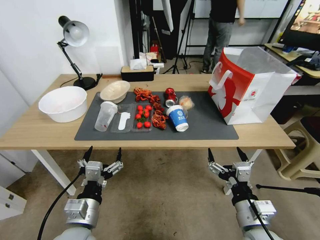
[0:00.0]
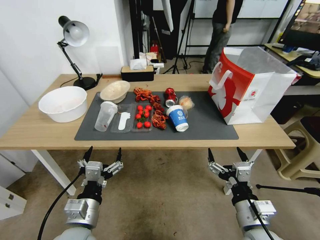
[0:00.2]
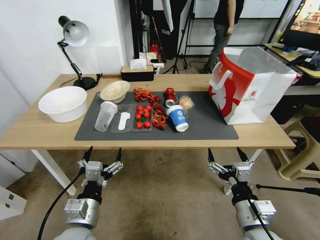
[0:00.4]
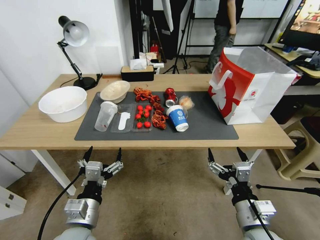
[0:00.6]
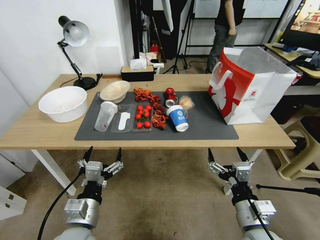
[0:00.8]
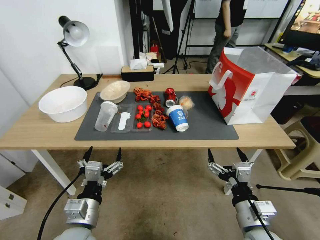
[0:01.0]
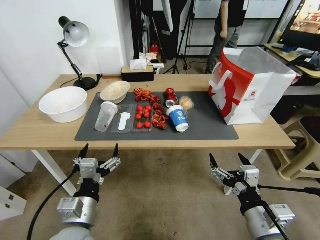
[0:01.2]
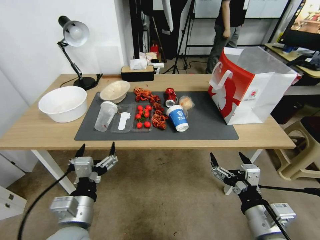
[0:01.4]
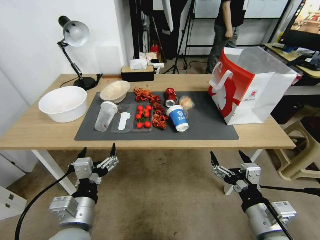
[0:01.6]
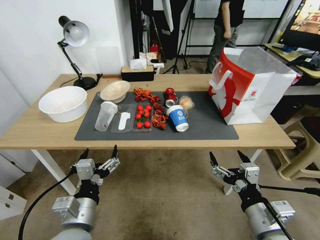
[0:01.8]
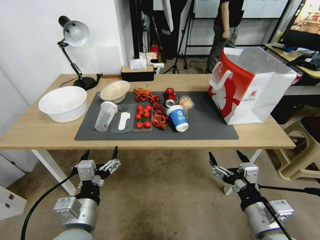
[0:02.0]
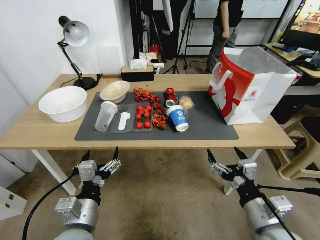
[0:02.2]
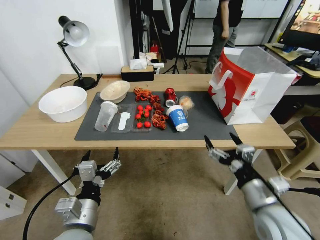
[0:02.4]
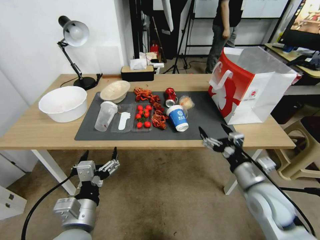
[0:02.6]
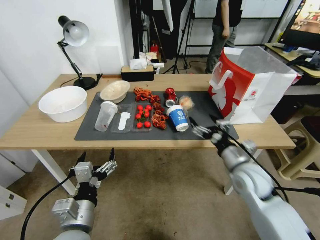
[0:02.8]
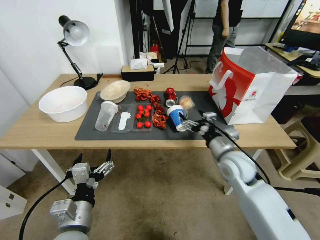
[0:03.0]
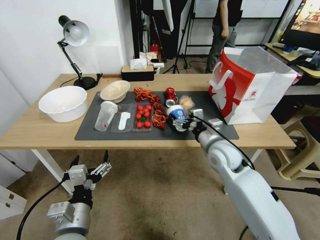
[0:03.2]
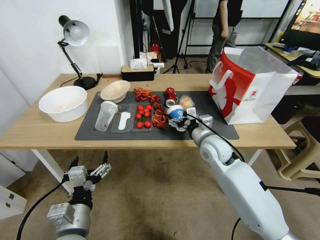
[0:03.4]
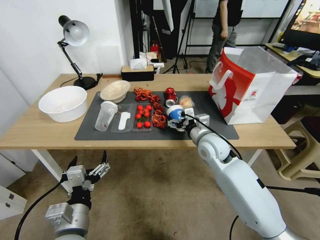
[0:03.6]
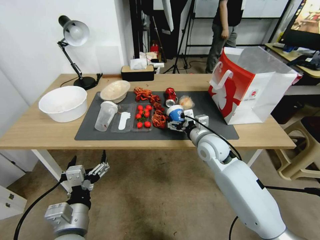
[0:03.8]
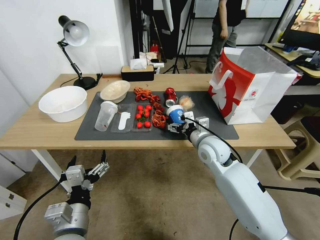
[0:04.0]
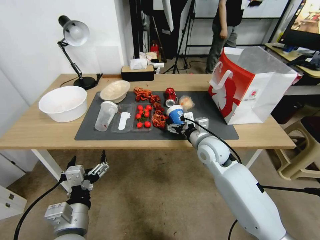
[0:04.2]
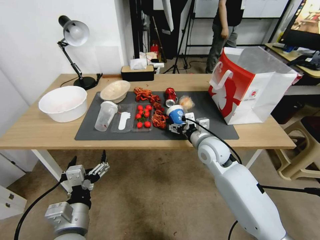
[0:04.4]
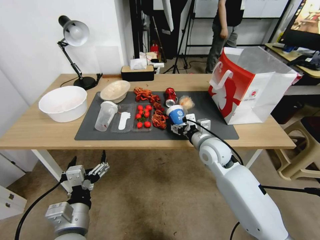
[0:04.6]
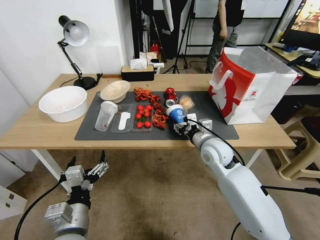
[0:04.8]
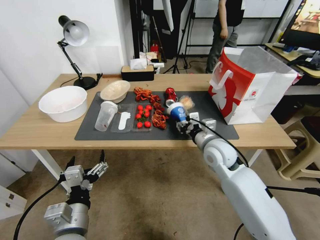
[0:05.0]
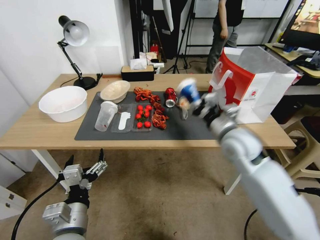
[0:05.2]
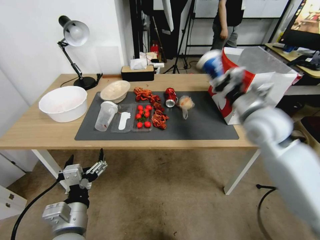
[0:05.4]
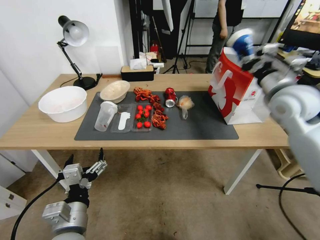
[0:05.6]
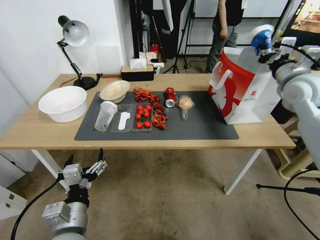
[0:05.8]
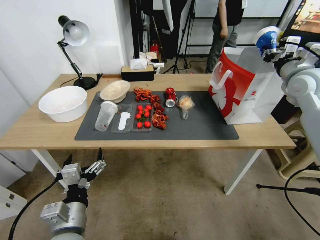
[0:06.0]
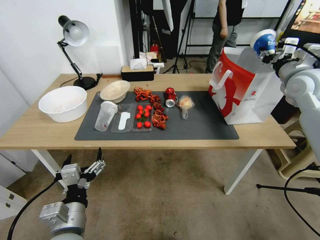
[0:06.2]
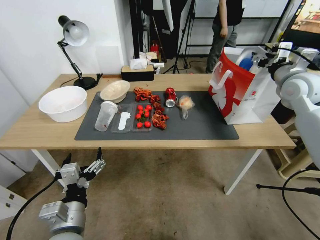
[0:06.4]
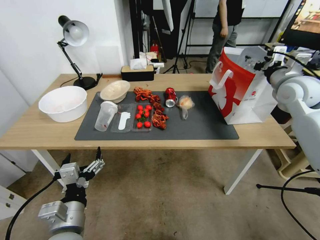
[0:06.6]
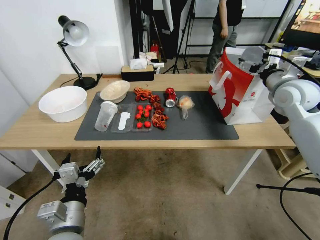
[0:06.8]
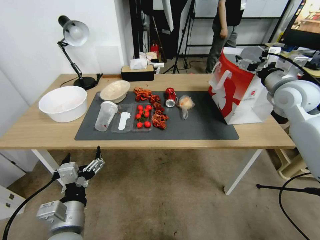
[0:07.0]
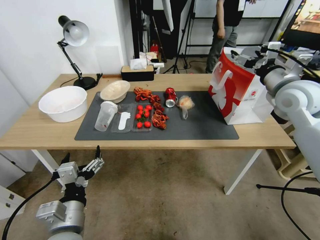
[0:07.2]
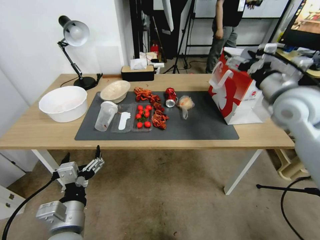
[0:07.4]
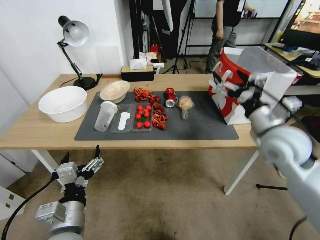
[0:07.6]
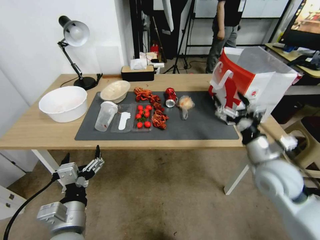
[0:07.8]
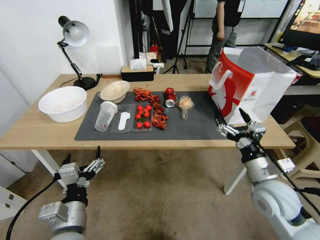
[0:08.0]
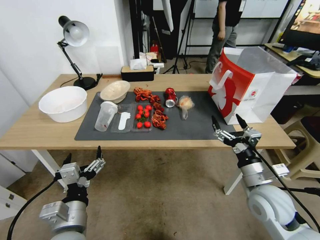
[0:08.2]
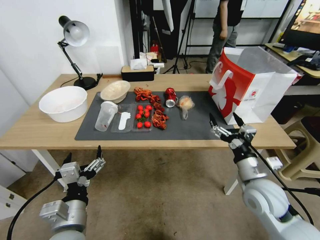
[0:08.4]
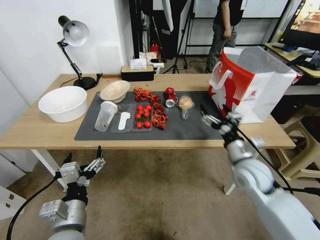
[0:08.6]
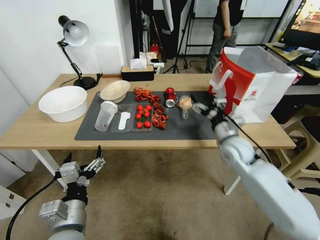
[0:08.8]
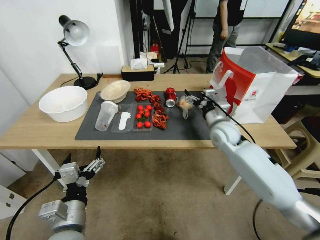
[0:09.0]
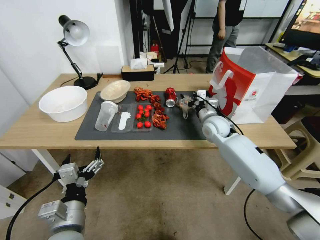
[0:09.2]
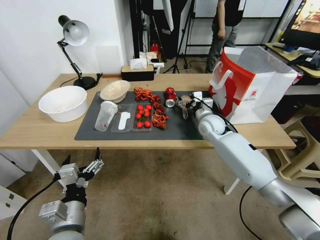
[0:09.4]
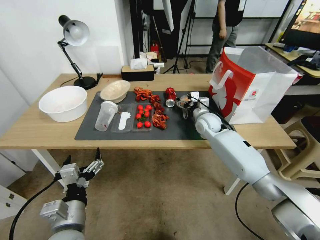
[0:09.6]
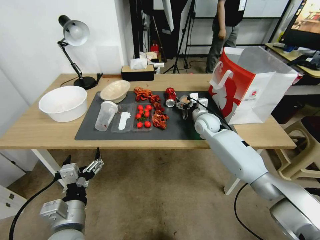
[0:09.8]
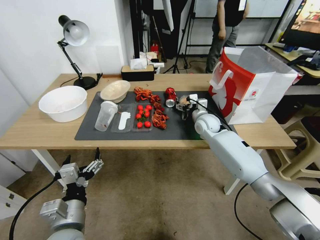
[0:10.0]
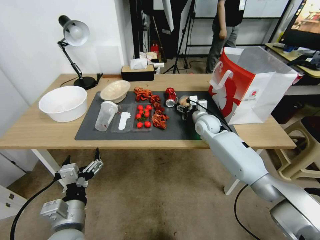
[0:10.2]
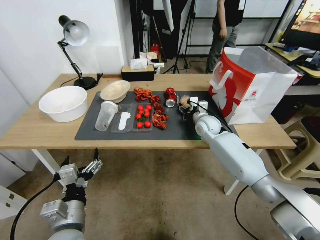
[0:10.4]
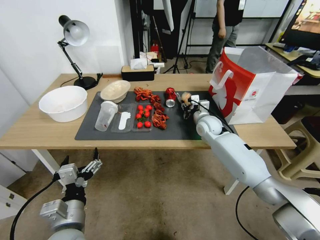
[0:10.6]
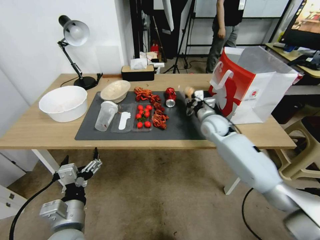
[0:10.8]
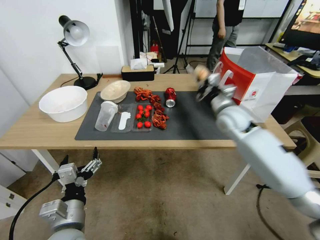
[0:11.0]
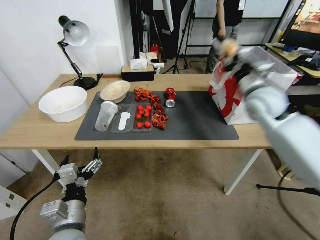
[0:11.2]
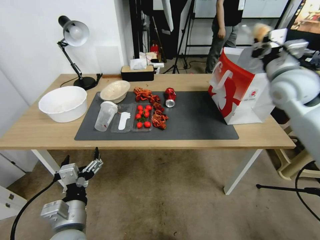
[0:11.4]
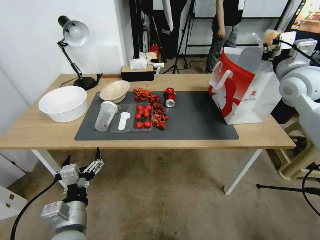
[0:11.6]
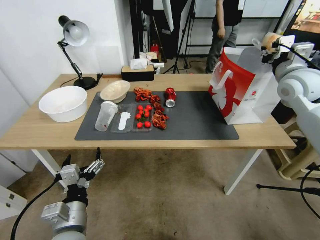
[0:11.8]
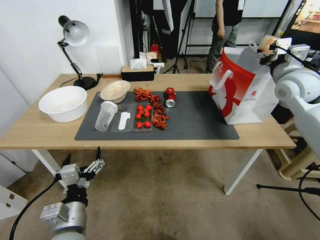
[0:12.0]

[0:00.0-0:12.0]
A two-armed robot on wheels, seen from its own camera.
0:01.6 to 0:03.0: The right gripper heads forward, covering roughly 20 cm.
0:03.0 to 0:04.4: The right gripper shifts about 5 cm to the left.
0:04.4 to 0:06.0: The right gripper moves to the right and upward, approximately 30 cm, and closes.
0:06.0 to 0:07.6: The right gripper is displaced backward, to the left and downward by approximately 20 cm, and opens.
0:07.6 to 0:09.0: The right gripper travels forward, downward and to the left by about 20 cm.
0:09.0 to 0:10.4: The right gripper moves forward, about 5 cm, and closes.
0:10.4 to 0:12.0: The right gripper heads upward and to the right, covering approximately 30 cm, and closes, then reopens.

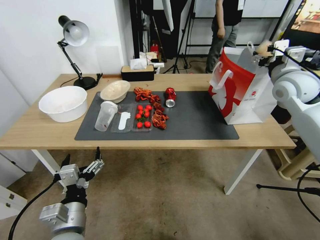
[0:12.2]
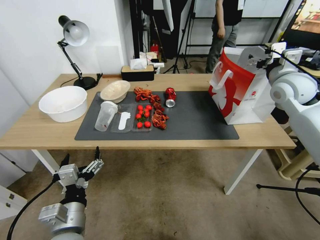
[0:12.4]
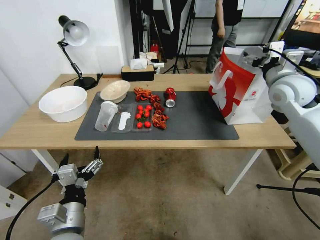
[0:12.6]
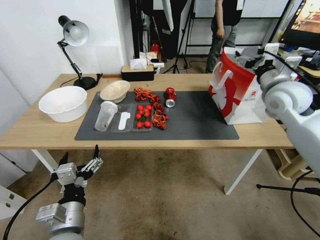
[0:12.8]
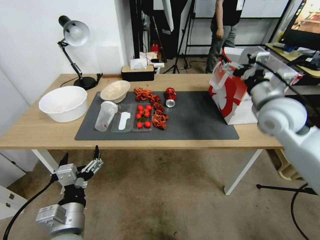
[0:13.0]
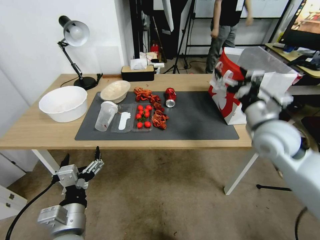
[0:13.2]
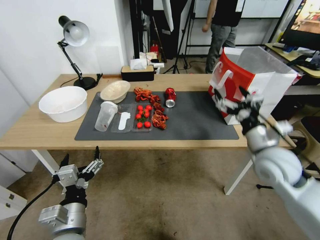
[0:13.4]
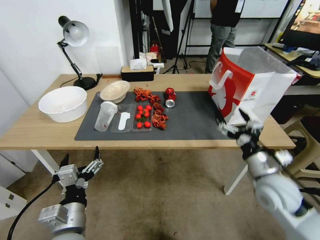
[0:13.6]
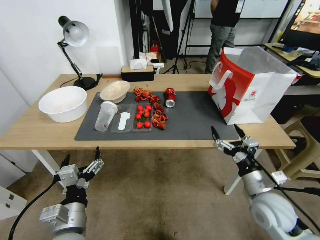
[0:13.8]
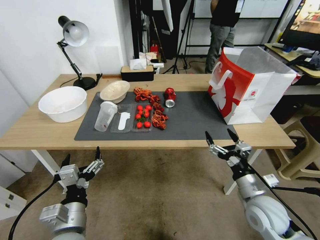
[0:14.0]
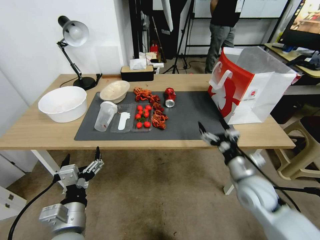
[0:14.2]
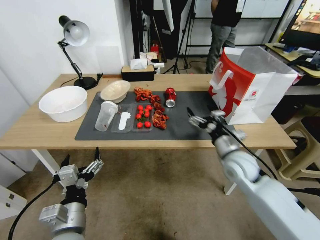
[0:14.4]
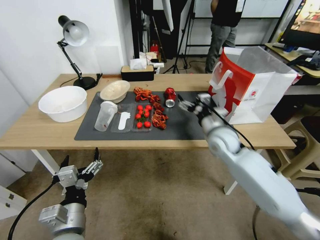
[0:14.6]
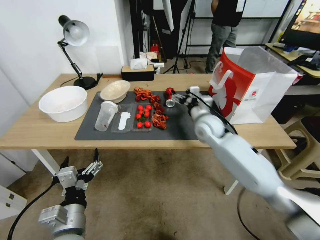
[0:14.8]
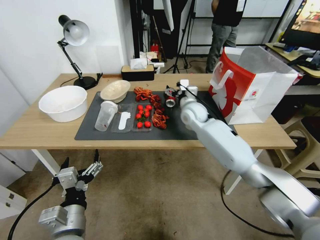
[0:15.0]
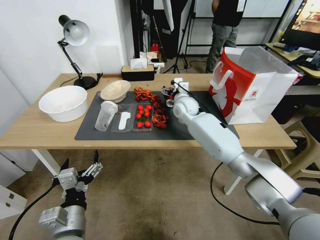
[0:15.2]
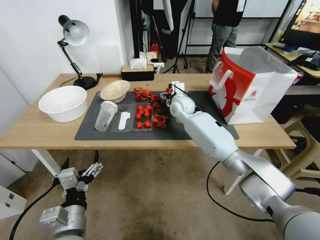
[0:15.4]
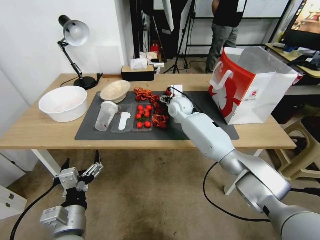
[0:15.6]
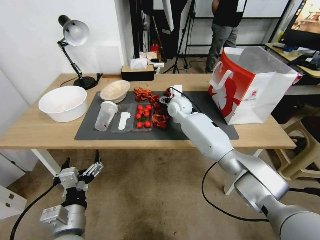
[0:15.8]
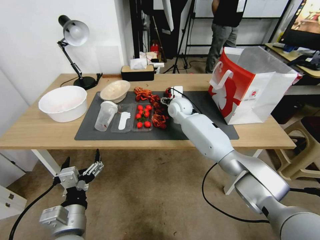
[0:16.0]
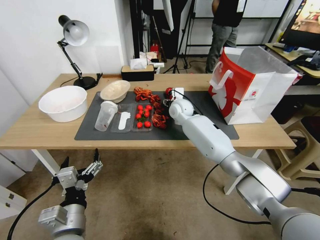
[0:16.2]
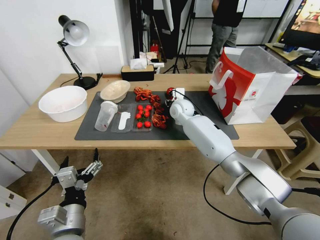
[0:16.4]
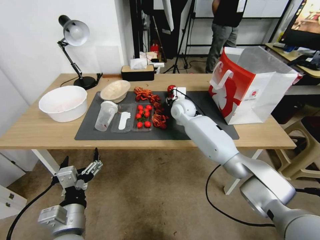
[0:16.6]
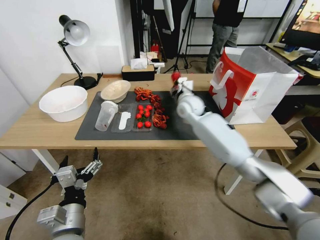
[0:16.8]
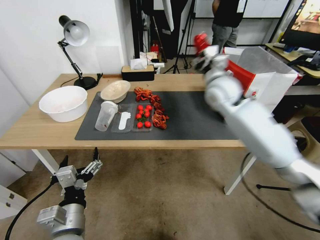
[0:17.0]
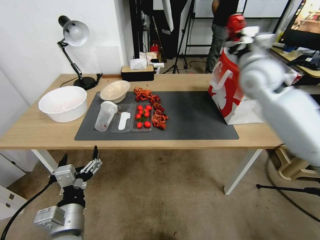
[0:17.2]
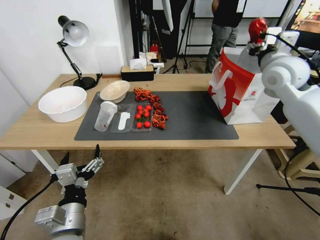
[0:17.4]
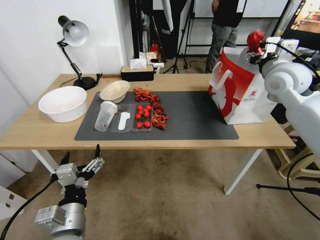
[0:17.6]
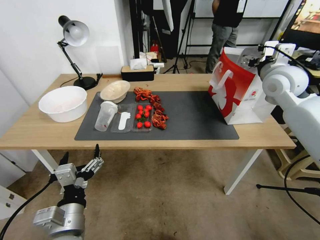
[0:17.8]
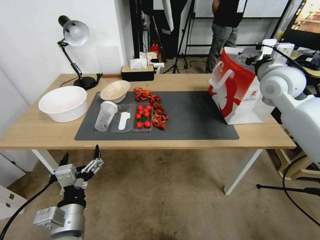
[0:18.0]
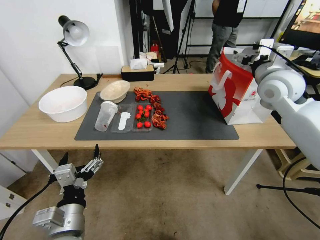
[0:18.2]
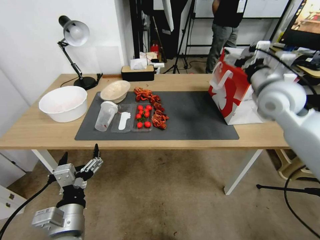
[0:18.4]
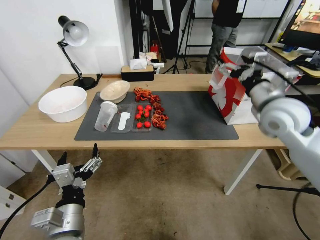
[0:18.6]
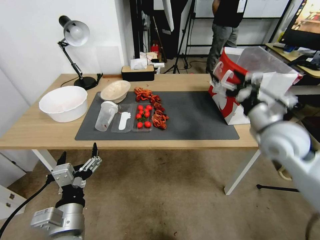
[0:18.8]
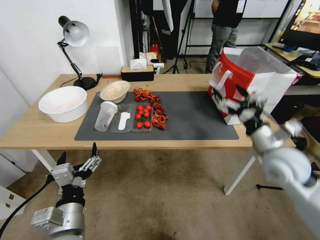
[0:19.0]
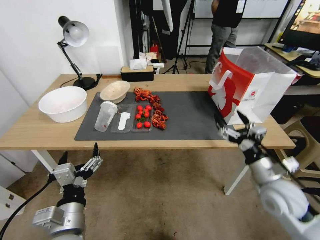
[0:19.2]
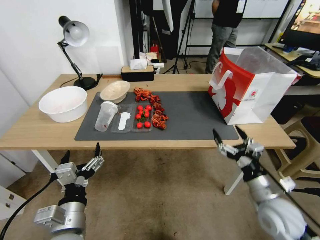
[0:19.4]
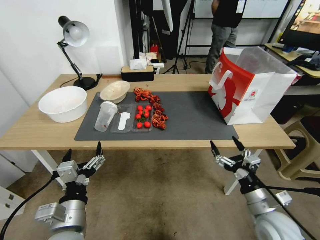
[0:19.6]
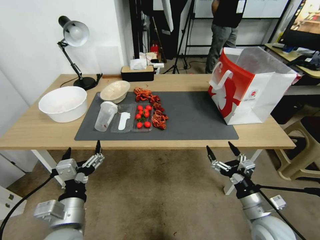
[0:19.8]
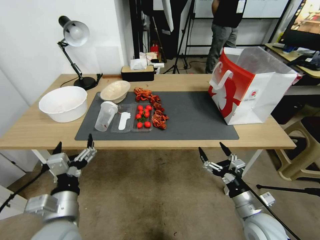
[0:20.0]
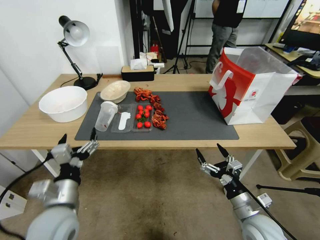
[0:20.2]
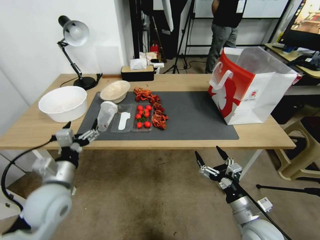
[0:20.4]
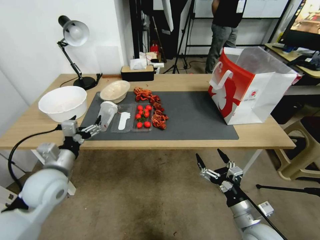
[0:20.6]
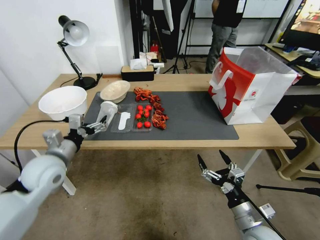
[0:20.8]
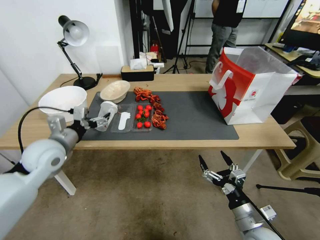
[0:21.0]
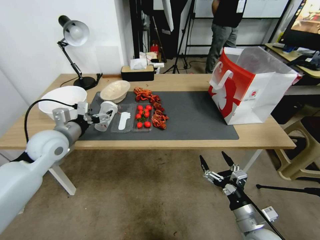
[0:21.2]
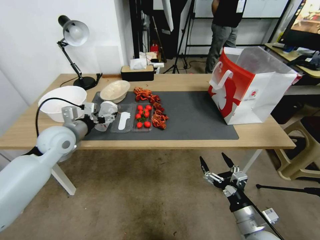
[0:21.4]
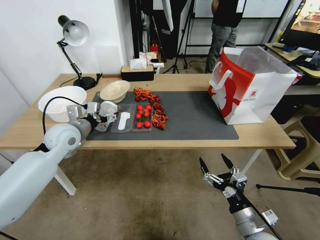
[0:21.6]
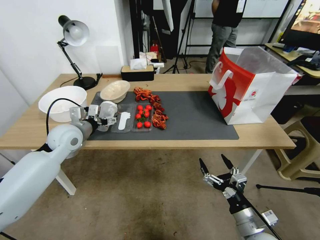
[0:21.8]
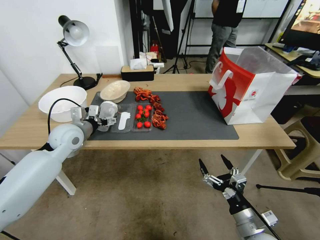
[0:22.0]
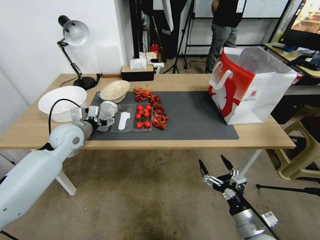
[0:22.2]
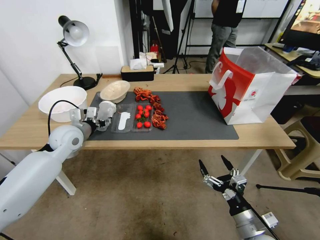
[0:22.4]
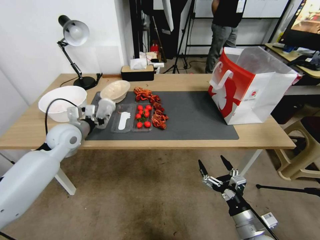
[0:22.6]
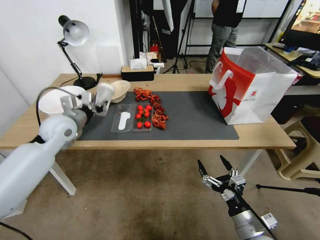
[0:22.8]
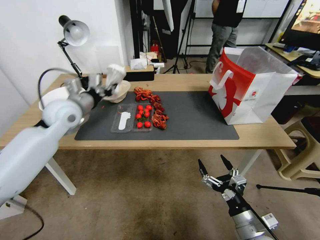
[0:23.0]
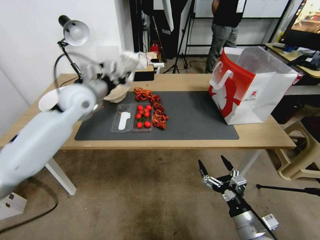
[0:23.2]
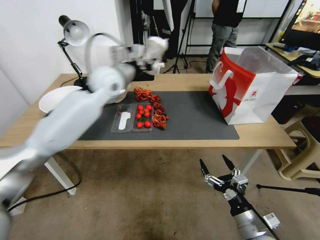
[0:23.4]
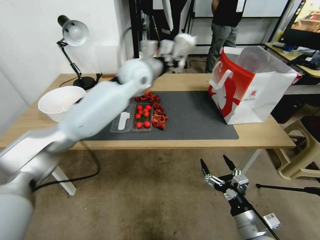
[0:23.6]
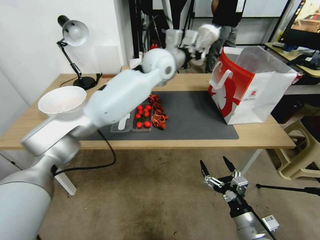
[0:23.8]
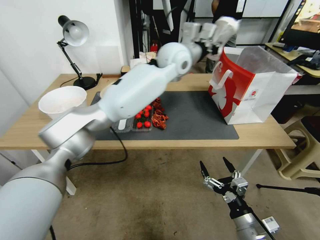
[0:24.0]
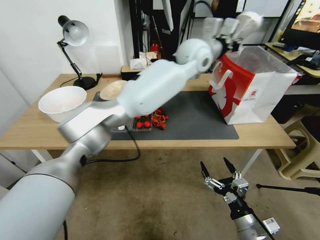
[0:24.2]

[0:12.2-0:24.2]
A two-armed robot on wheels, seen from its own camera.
0:12.2 to 0:13.8: The right gripper moves downward and backward, about 35 cm.
0:13.8 to 0:15.2: The right gripper shifts some 40 cm forward and to the left.
0:15.2 to 0:16.6: The right gripper closes.
0:16.6 to 0:18.2: The right gripper is displaced to the right, upward and backward by about 30 cm, and opens its fingers.
0:18.2 to 0:19.8: The right gripper shifts some 40 cm downward and backward.
0:19.8 to 0:21.2: The left gripper shifts roughly 25 cm forward and to the left.
0:21.2 to 0:22.6: The left gripper shifts by roughly 5 cm, and closes its fingers.
0:22.6 to 0:24.2: The left gripper travels to the right and upward by approximately 50 cm.
